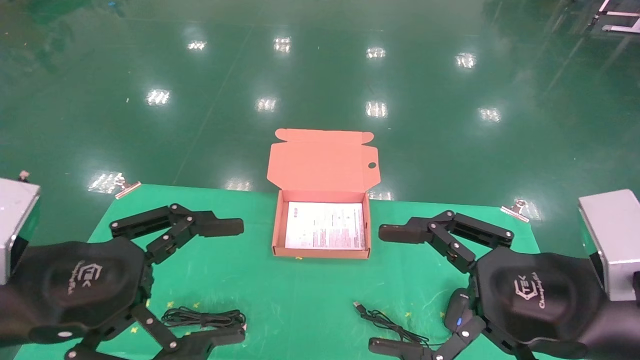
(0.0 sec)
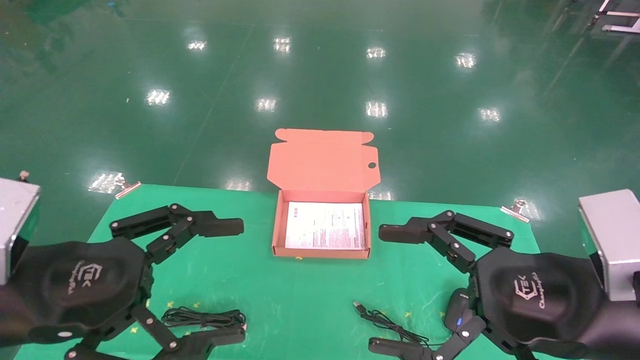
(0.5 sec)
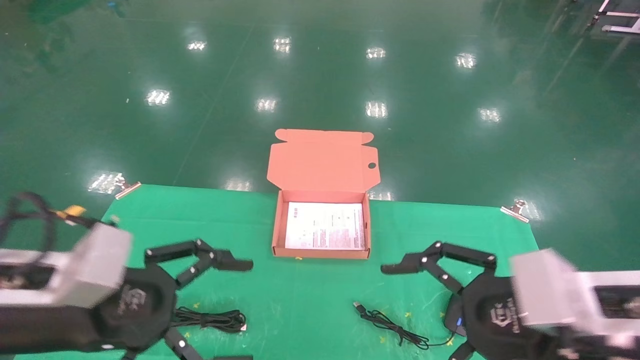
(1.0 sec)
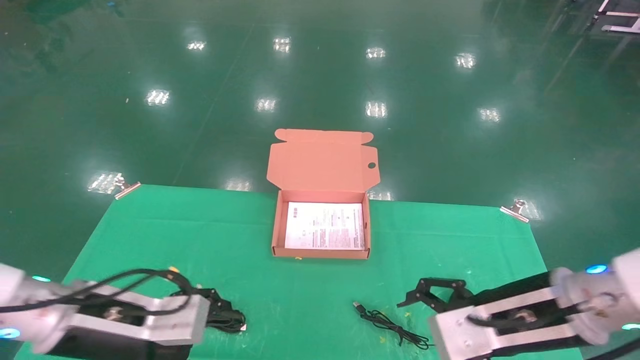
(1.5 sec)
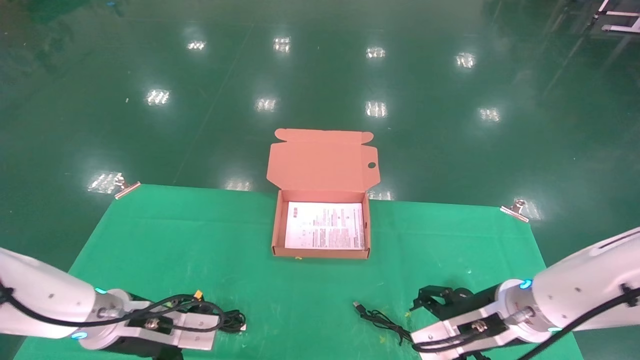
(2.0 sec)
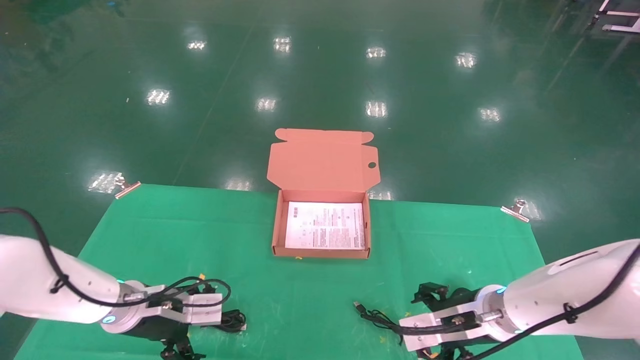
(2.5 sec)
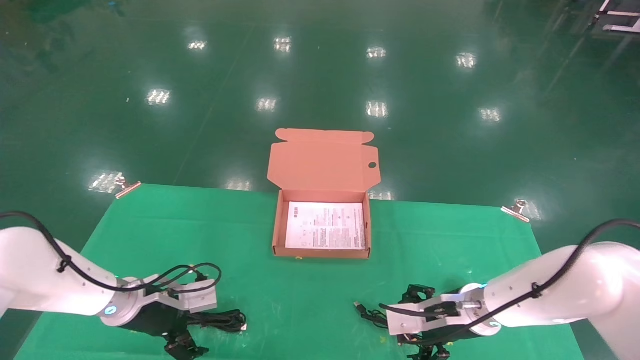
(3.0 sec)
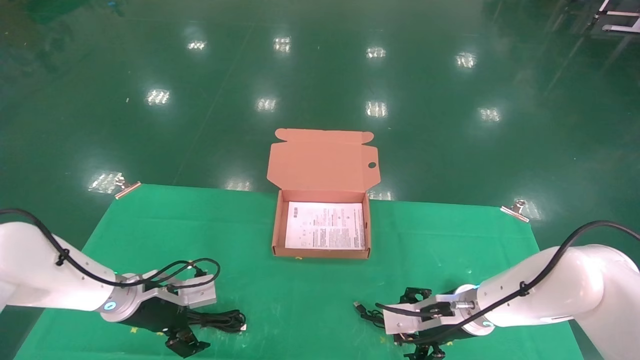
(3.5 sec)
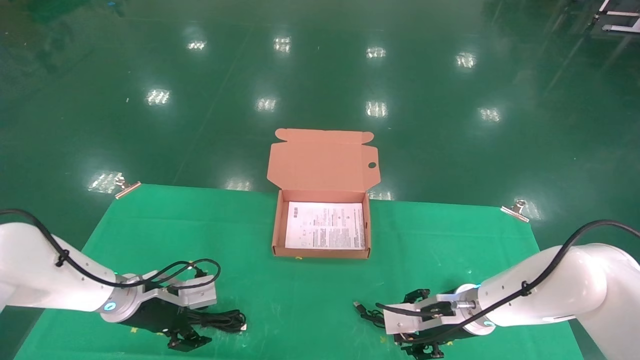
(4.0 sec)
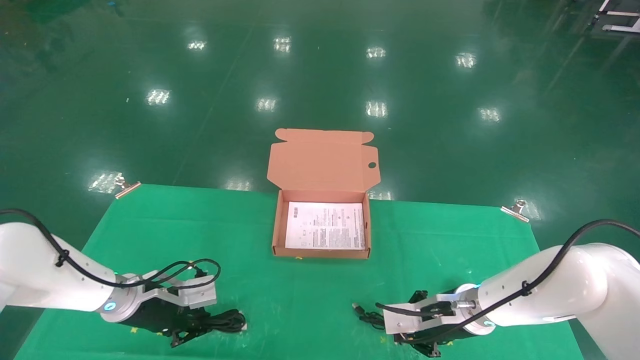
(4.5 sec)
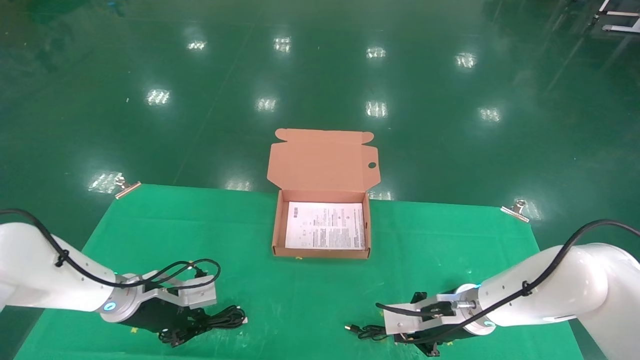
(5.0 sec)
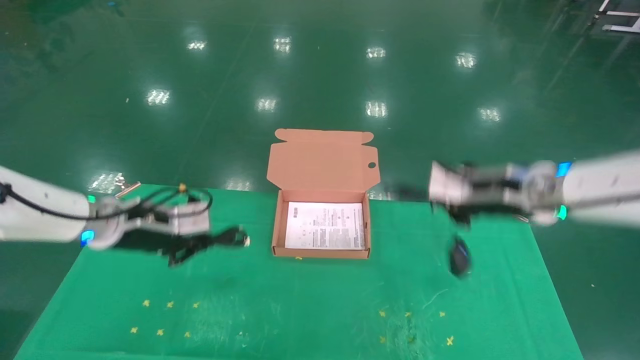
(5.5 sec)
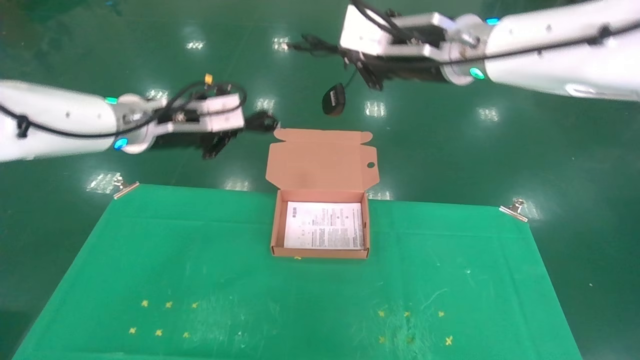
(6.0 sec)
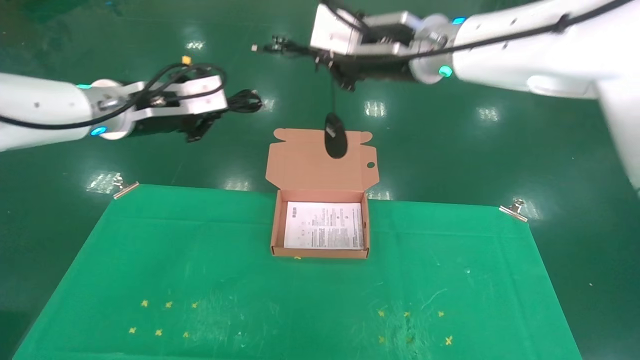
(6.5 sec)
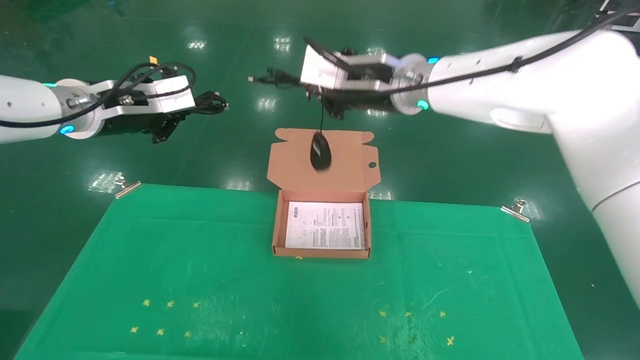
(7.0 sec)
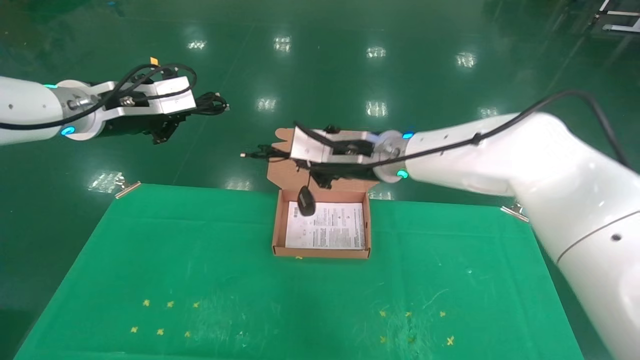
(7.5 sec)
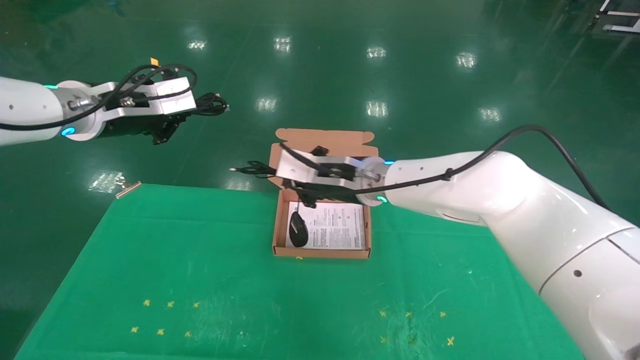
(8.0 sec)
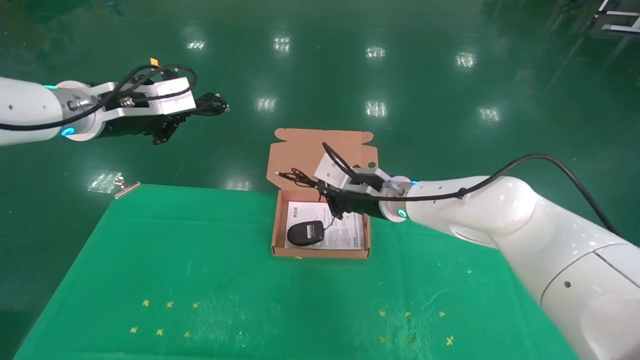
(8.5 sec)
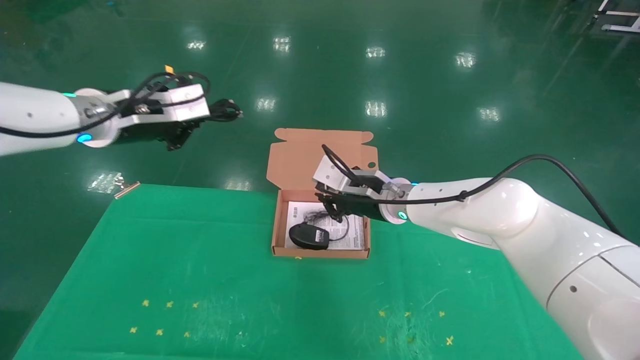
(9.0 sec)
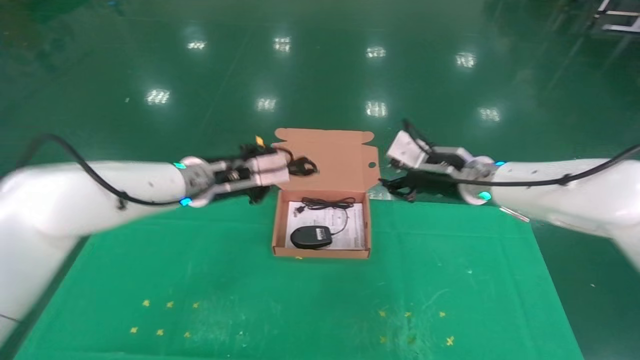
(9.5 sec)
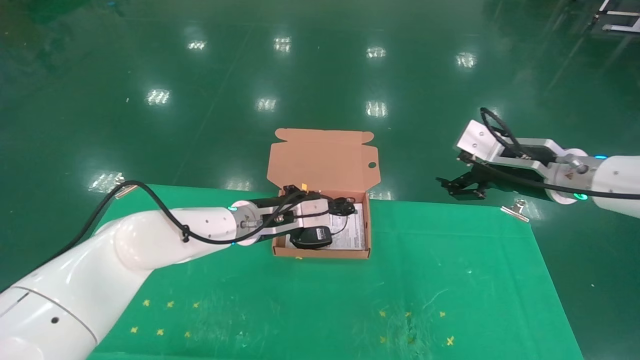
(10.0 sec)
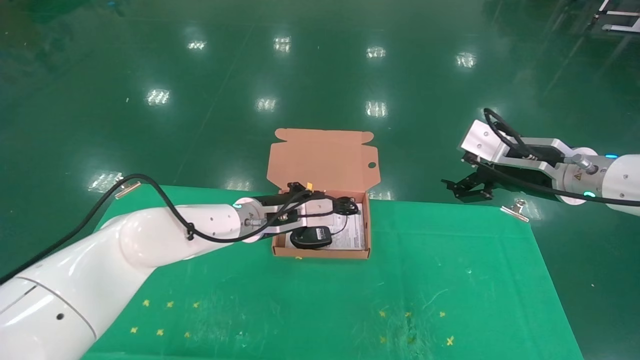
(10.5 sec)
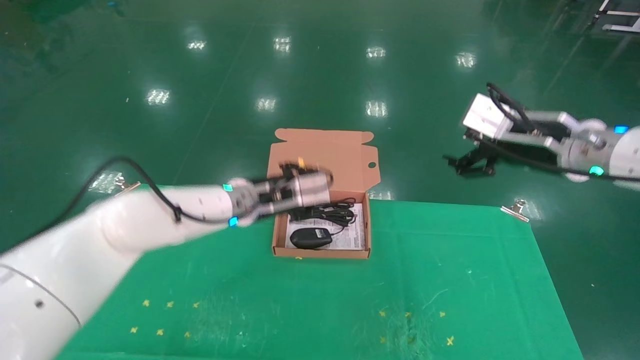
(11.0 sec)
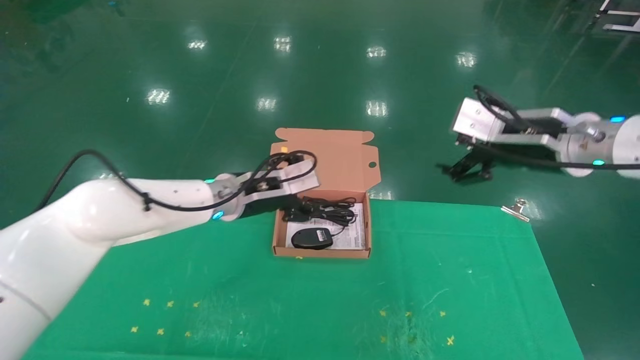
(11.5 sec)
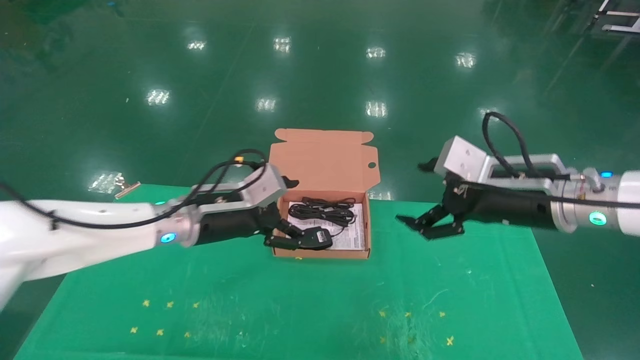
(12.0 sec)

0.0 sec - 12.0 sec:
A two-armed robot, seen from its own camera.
Task of the whole recording: grasp data cable left put into box grasp mouse right put into box.
Step, 1.5 sec - 6.0 sec: Grab and pick up both the mouse and power cord from the accessory packaging area at the same time.
Step, 6.5 sec - 12.0 sec: Place the mouse and power cord into the box.
0.0 sec - 2.0 sec: Both grippers travel together forward and downward, roughly 20 cm.
2.0 sec - 4.0 sec: The left gripper shifts roughly 5 cm forward, while the right gripper moves forward and downward, approximately 10 cm.
4.0 sec - 6.0 sec: The grippers both shift upward by some 30 cm. The left gripper closes its fingers. Meanwhile the right gripper closes.
6.0 sec - 8.0 sec: The right gripper shifts approximately 20 cm downward and to the left. Meanwhile the left gripper moves to the left, approximately 5 cm.
8.0 sec - 10.0 sec: The left gripper is displaced to the right and downward by some 25 cm. The right gripper is displaced to the right by approximately 25 cm, and opens.
10.0 sec - 12.0 sec: The left gripper goes approximately 10 cm to the left and backward, and opens its fingers; the right gripper travels backward by roughly 5 cm.
